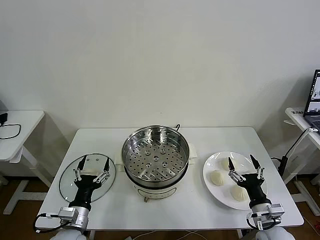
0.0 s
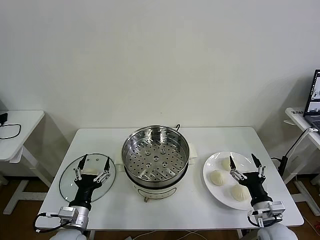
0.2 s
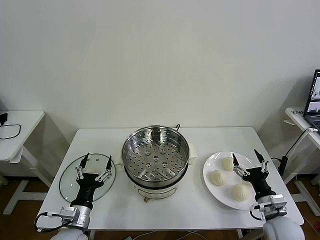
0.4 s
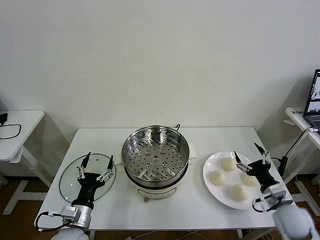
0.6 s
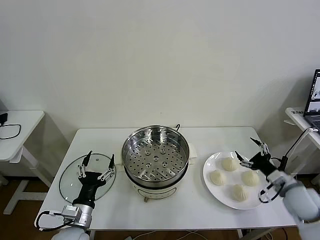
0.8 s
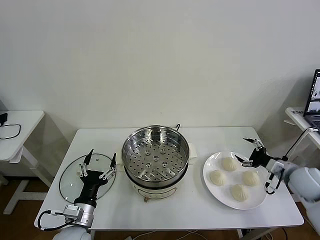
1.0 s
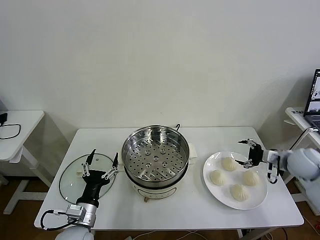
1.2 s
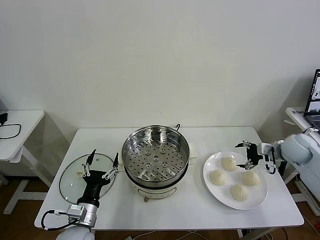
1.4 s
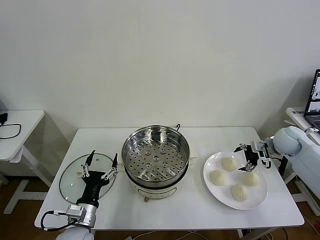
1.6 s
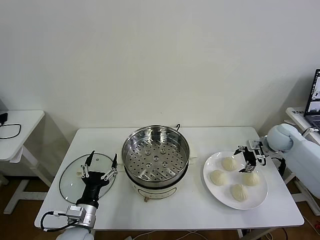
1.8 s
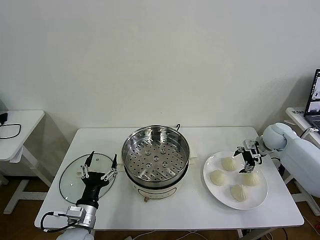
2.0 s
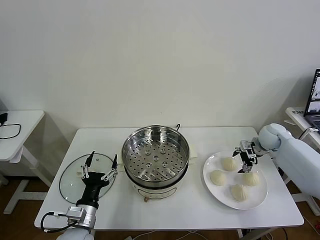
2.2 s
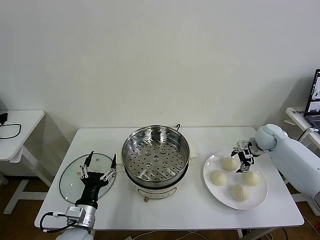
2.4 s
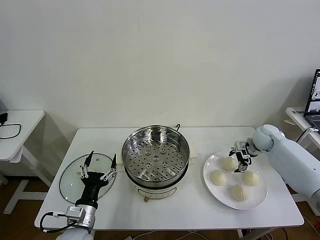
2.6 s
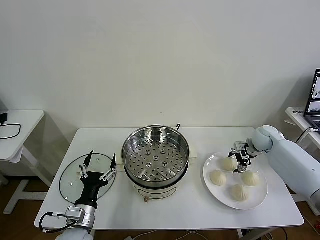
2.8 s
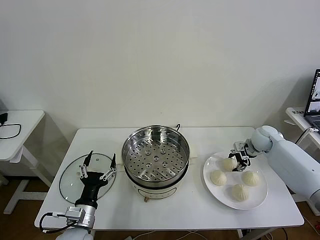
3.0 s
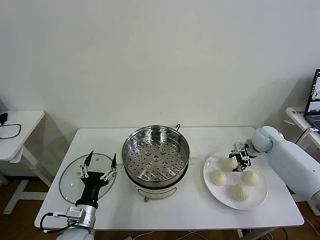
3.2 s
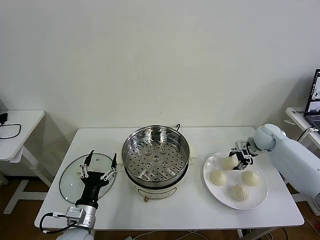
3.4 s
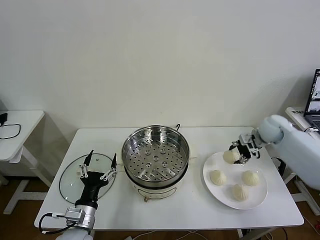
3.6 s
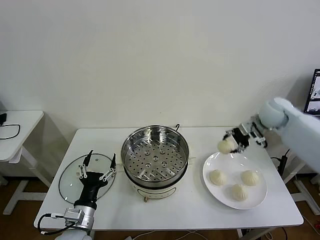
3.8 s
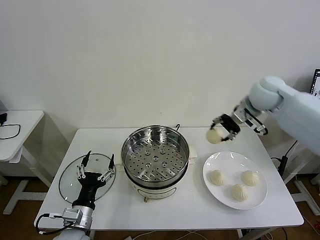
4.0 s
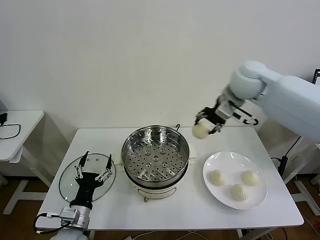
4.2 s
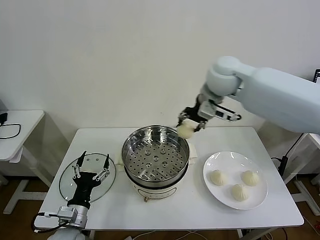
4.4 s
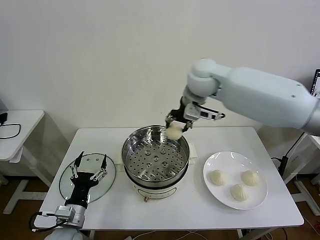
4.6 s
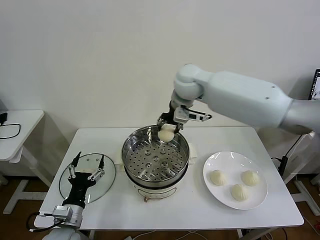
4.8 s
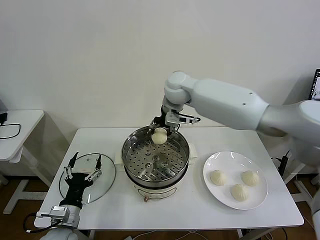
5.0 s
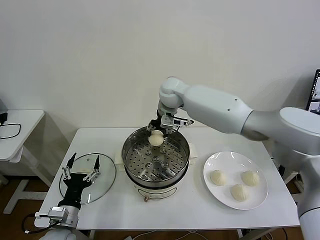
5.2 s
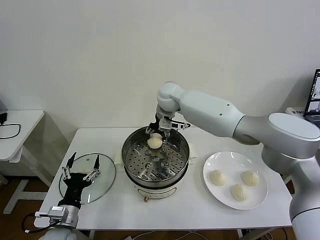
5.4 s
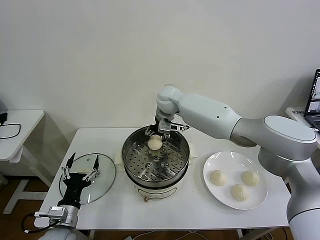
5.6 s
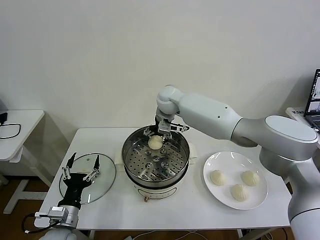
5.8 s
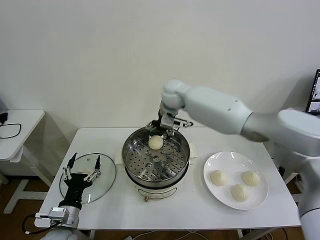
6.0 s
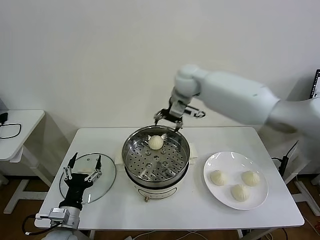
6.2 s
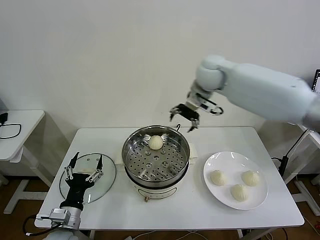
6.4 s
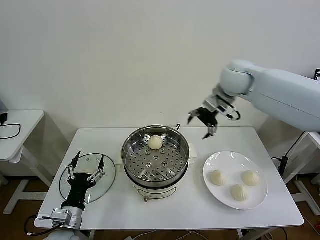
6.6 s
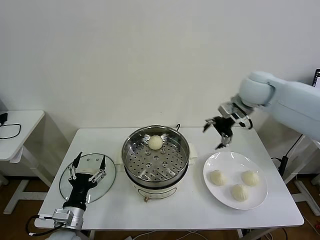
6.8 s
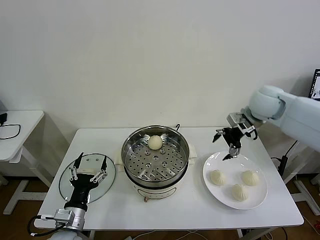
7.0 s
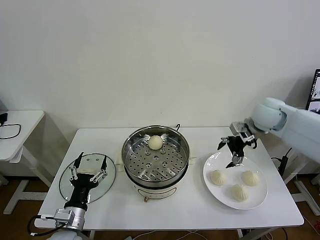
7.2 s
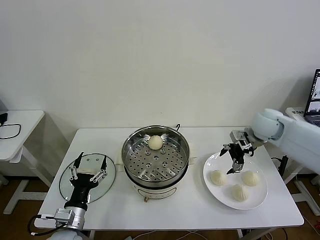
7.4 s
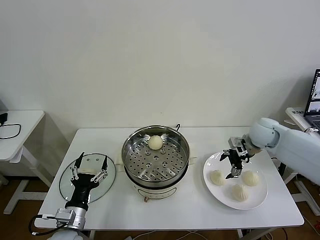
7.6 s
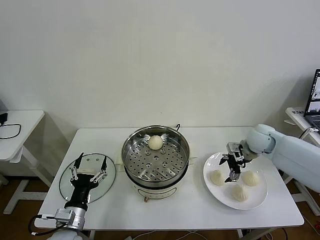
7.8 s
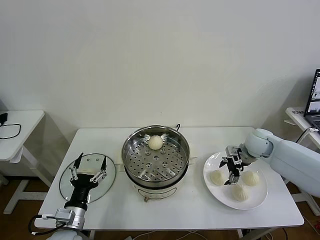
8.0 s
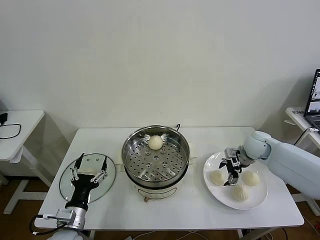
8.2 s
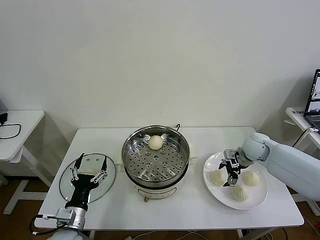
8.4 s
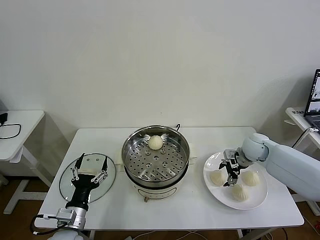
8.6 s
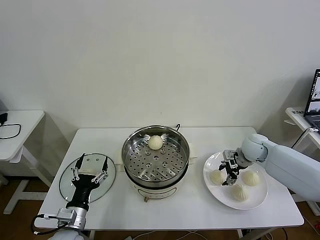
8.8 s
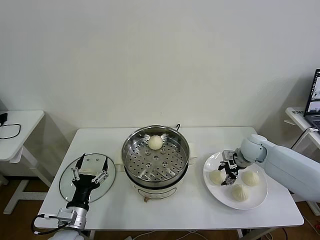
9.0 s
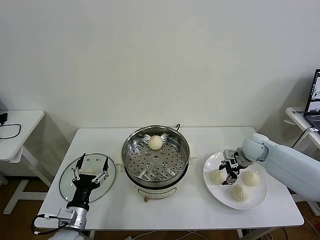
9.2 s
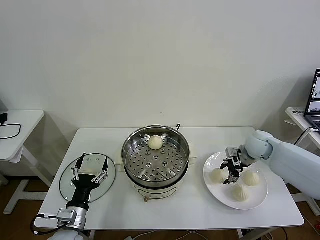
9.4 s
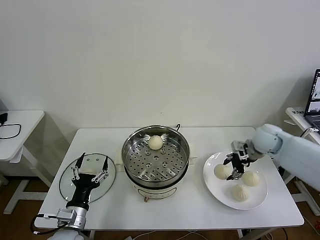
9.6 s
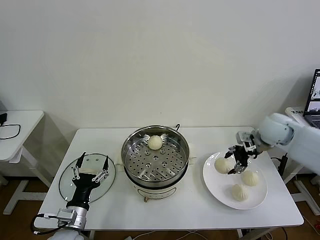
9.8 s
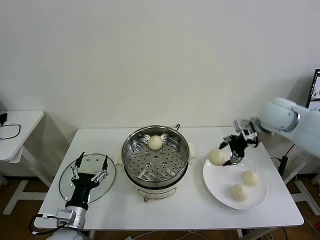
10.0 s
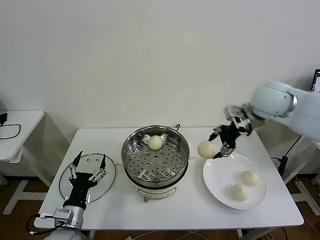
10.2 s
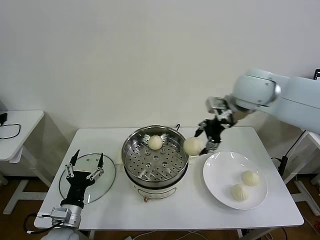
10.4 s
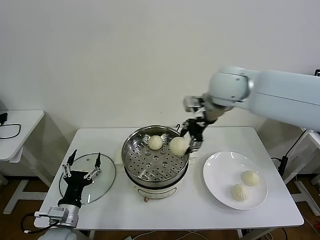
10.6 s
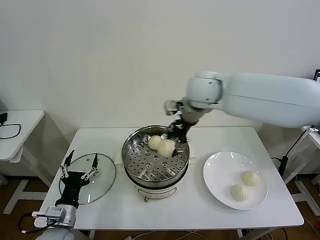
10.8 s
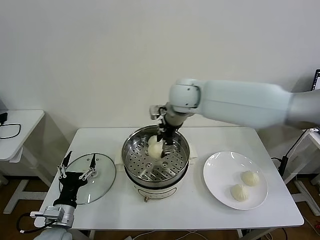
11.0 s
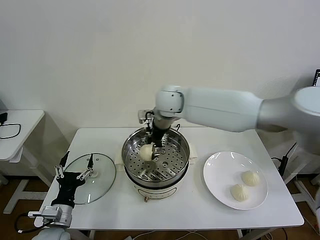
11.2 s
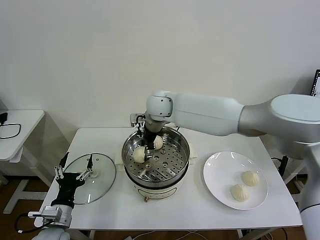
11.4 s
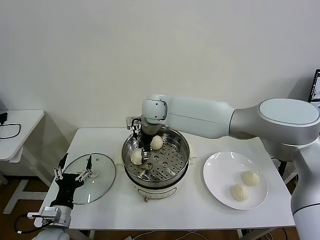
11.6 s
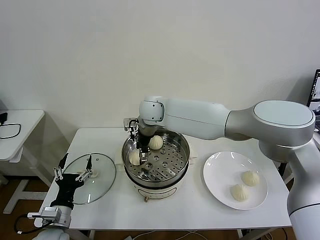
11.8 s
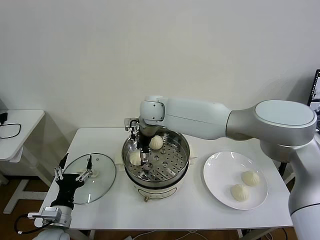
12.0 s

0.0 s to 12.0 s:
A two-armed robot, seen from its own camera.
Task of the whole recording: take steamed baozi put them in steamer then cover it.
Step, 0.0 to 3.2 s: Grasp the baozi in the plate with right gripper.
Step, 3.4 to 6.0 s: Place the baozi on the steamer with right gripper.
Step, 6.2 to 9.2 s: Grasp the baozi in the plate with right gripper.
1.6 to 3.0 s: The right gripper moves some 5 cm, and closes its fingers.
3.0 to 4.4 s: The right gripper is displaced upward and to the left by roughly 40 cm.
4.4 to 6.0 s: The right gripper shifts about 10 cm downward, to the left and forward, and opens up.
6.0 to 7.6 s: The right gripper shifts approximately 30 cm to the right and downward.
7.6 to 9.0 s: The right gripper shifts about 5 cm downward, and closes its fingers.
9.0 to 10.4 s: The right gripper is displaced upward and to the left by approximately 30 cm.
10.4 to 12.0 s: The right gripper goes approximately 25 cm to the left and downward, and opens.

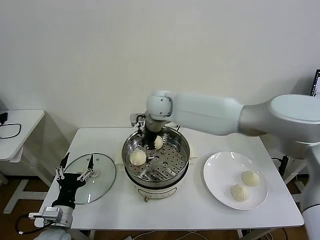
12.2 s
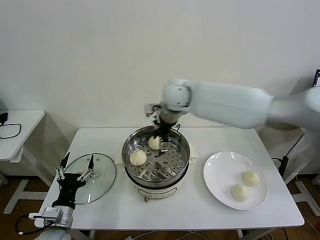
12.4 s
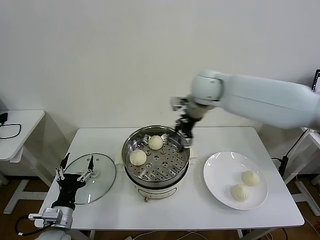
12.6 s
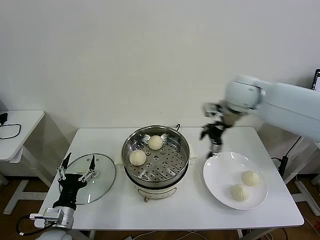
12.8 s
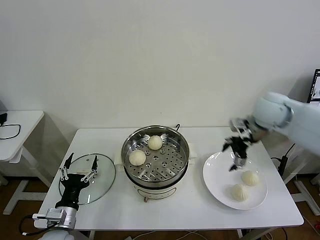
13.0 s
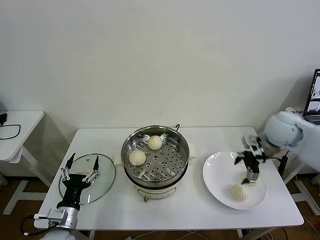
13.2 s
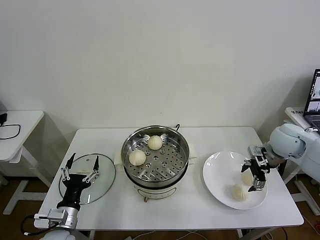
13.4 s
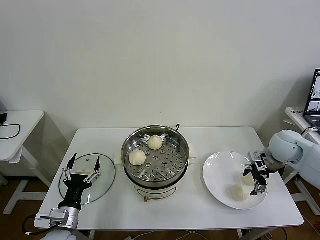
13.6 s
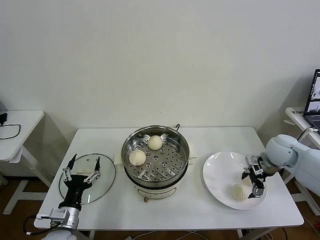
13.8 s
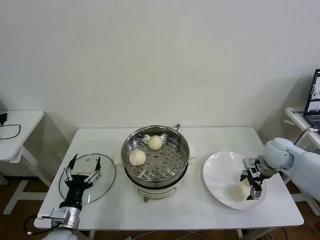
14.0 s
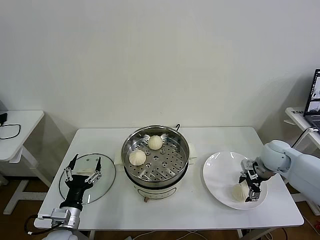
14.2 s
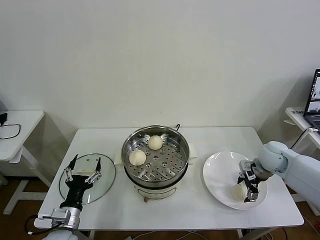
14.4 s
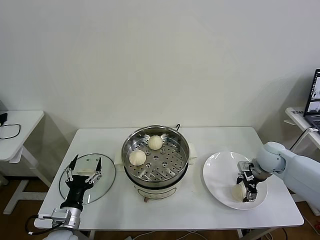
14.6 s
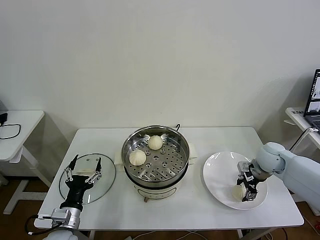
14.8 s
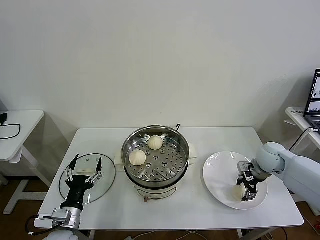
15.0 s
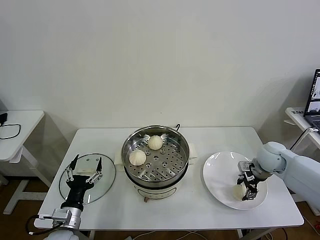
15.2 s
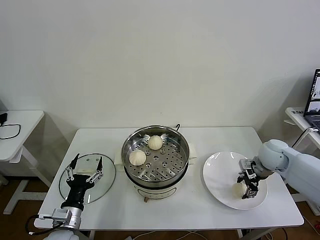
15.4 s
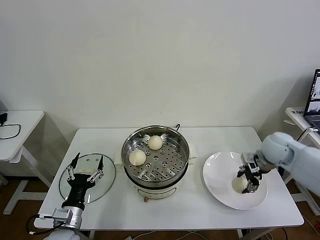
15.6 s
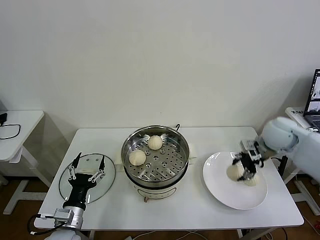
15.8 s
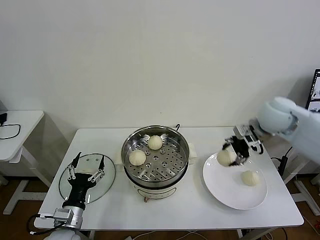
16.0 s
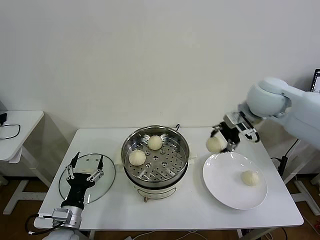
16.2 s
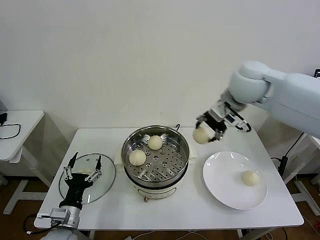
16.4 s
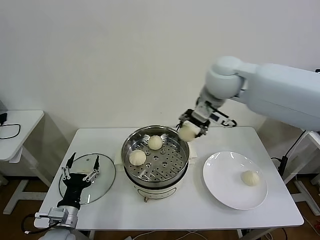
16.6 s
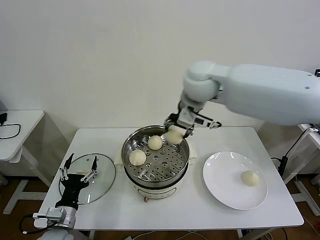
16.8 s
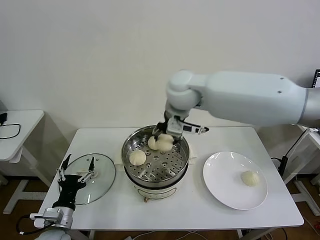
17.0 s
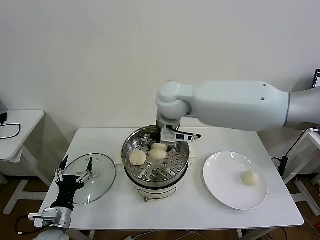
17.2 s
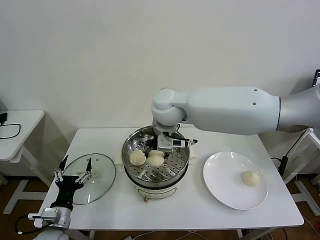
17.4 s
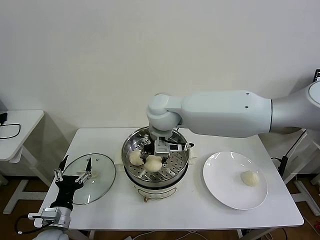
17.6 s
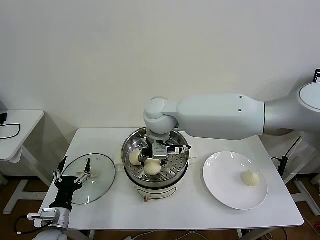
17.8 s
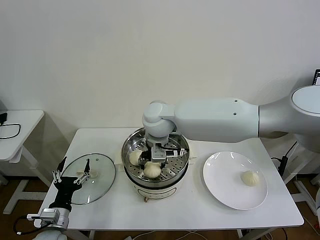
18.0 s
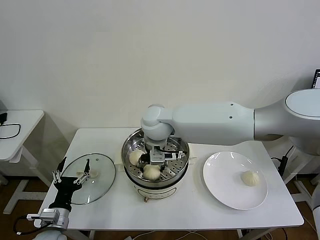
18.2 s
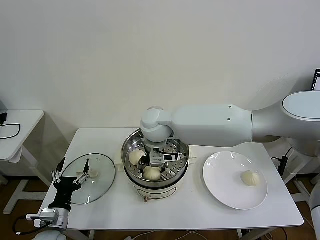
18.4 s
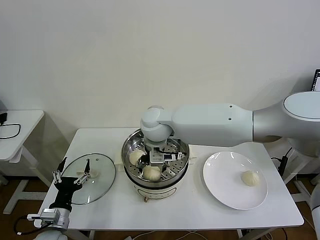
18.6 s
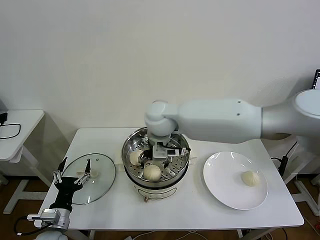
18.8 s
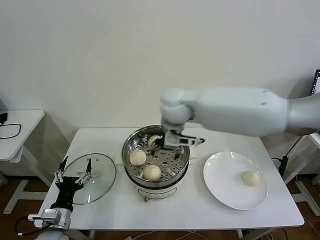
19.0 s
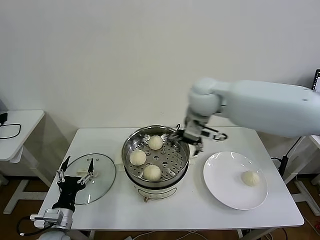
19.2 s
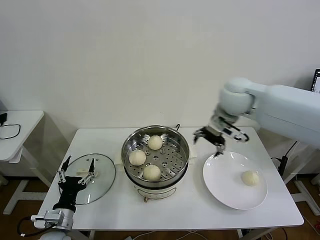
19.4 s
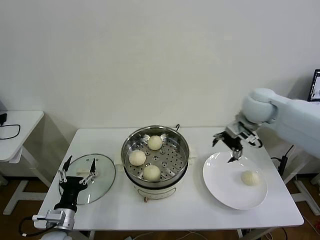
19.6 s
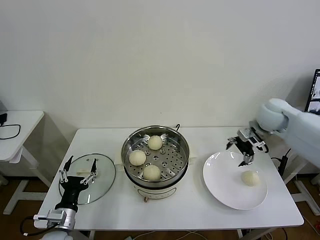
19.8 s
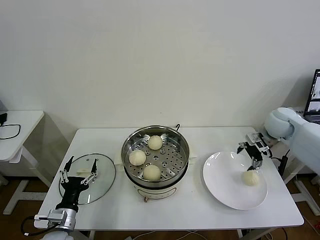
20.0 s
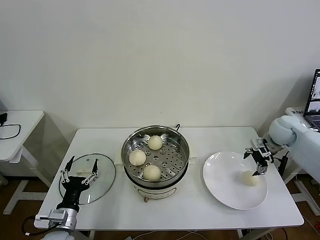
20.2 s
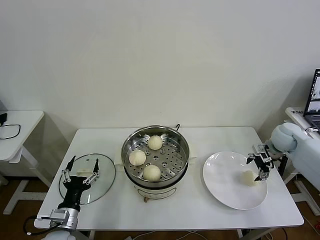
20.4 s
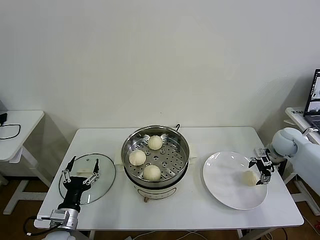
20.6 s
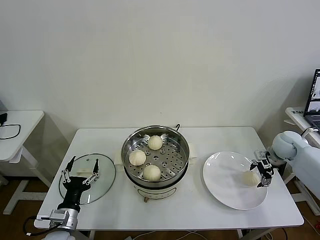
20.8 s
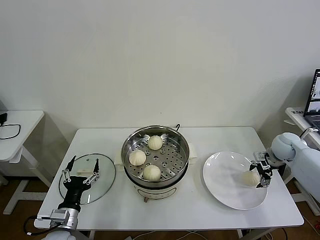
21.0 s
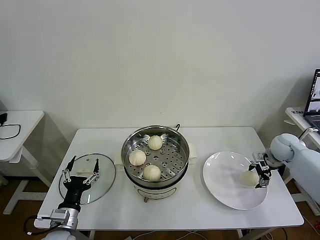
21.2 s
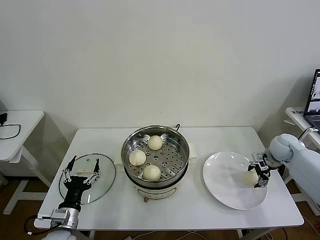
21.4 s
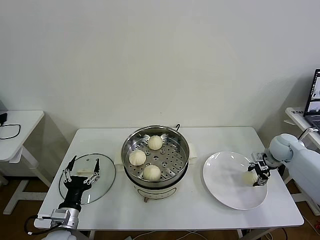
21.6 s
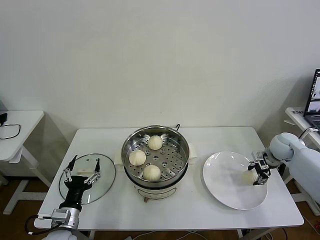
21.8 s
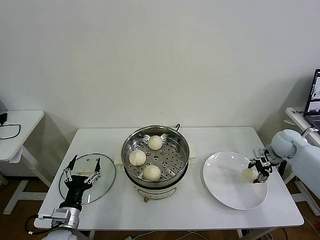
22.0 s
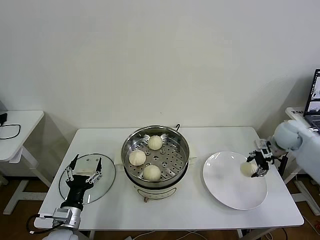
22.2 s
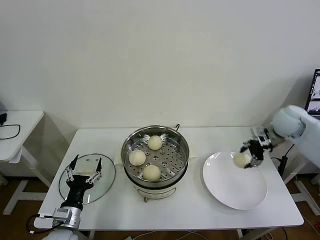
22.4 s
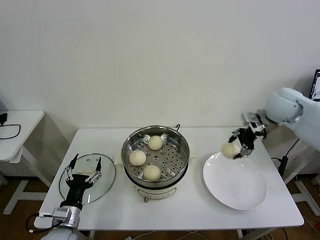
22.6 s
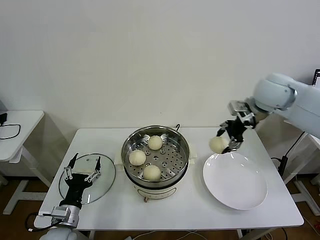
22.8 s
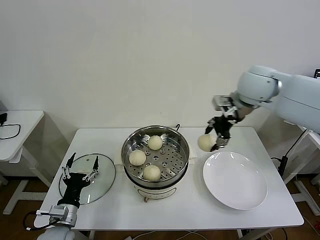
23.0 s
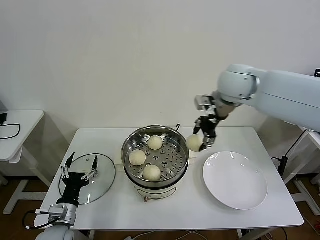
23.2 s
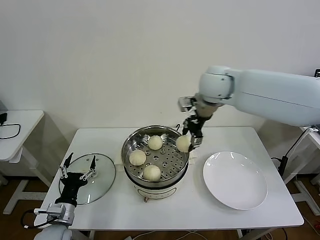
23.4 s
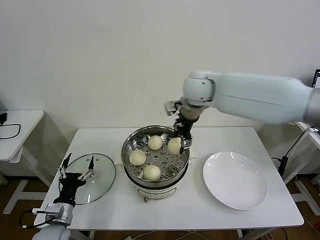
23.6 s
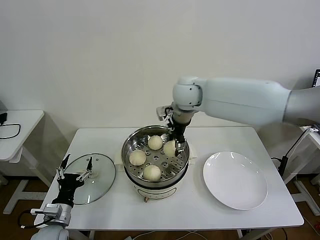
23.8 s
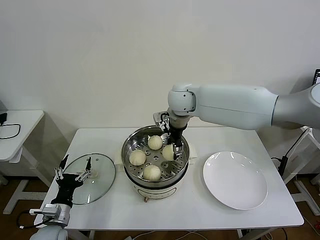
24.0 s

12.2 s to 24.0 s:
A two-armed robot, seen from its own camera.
Task of the whole recording: take steamed baozi put them in steamer then cover it.
Step, 12.2 to 15.0 s: Grasp the baozi in the plate with right gripper.
Step, 15.4 to 18.8 s: Place the baozi on the steamer with right gripper.
Step, 19.0 to 21.6 s: Grasp the baozi in the plate with right gripper.
12.2 to 13.6 s: The right gripper goes approximately 40 cm to the right.
13.6 to 15.2 s: The right gripper travels downward by roughly 5 cm, and closes.
15.2 to 16.6 s: The right gripper heads upward and to the left, covering roughly 35 cm.
16.6 to 18.2 s: The right gripper moves to the left and downward, roughly 20 cm.
18.2 to 19.6 s: The right gripper moves to the right, some 30 cm, and opens up.
19.6 to 21.0 s: The right gripper goes roughly 25 cm downward and to the right.
21.0 to 22.6 s: The right gripper heads upward and to the left, covering roughly 20 cm, and closes.
22.6 to 24.0 s: The right gripper is displaced to the left by about 30 cm.
